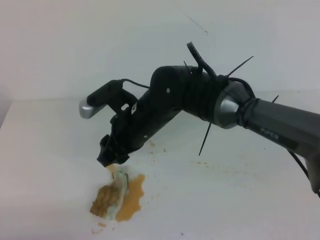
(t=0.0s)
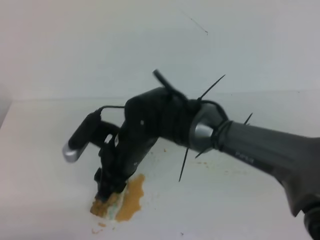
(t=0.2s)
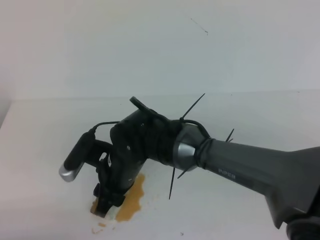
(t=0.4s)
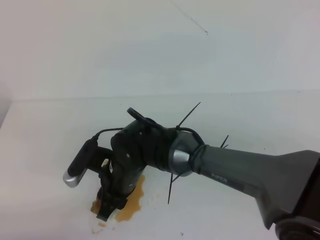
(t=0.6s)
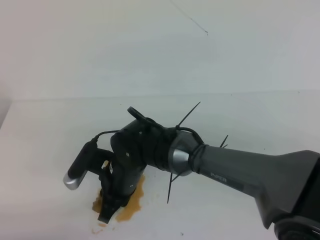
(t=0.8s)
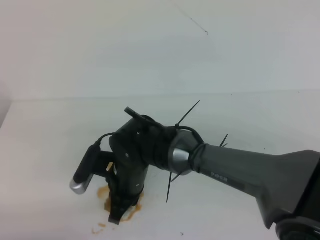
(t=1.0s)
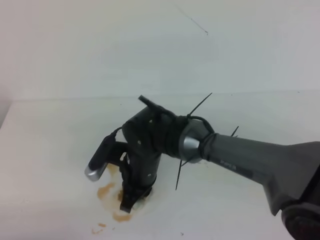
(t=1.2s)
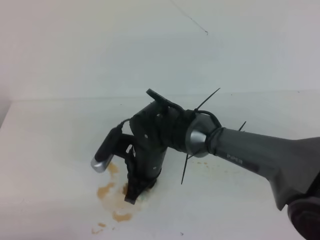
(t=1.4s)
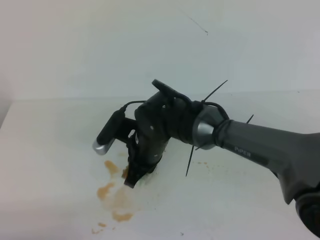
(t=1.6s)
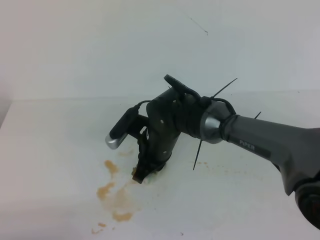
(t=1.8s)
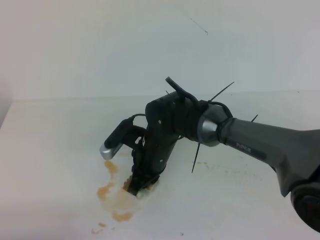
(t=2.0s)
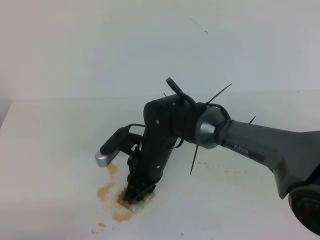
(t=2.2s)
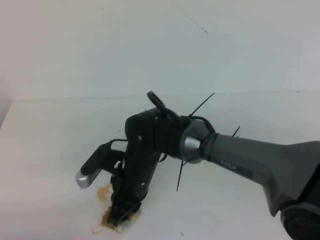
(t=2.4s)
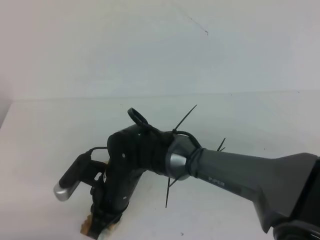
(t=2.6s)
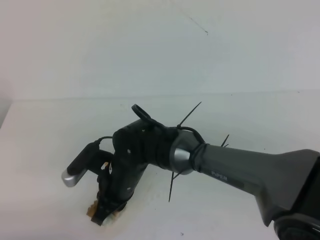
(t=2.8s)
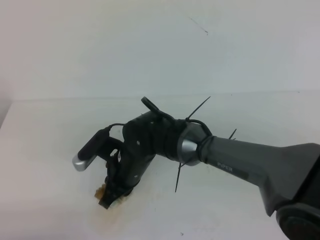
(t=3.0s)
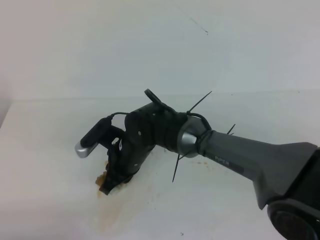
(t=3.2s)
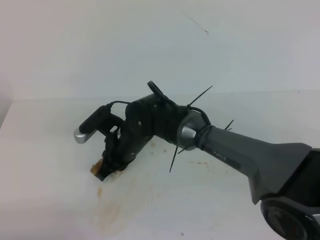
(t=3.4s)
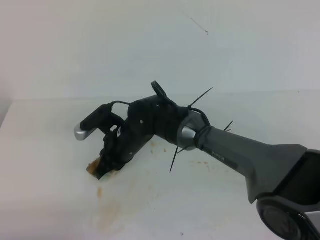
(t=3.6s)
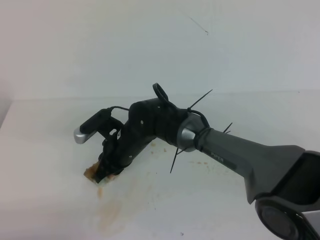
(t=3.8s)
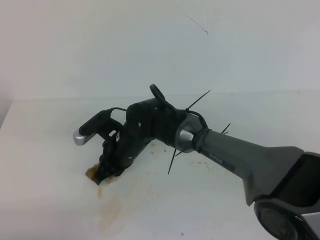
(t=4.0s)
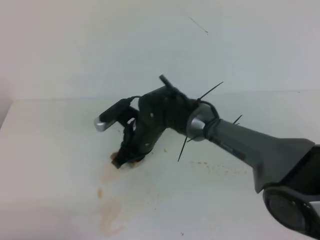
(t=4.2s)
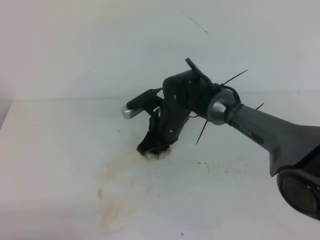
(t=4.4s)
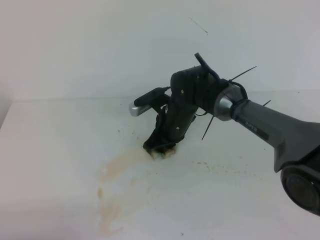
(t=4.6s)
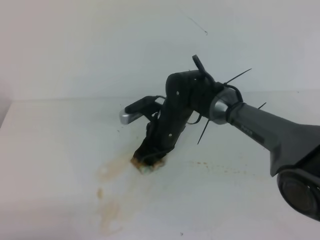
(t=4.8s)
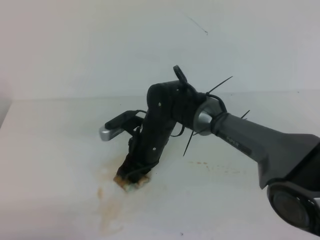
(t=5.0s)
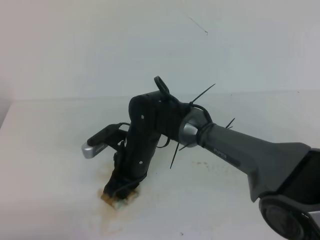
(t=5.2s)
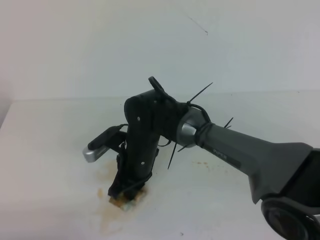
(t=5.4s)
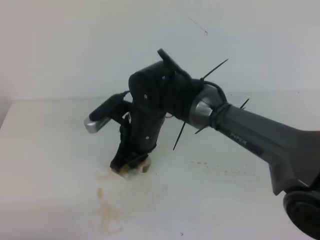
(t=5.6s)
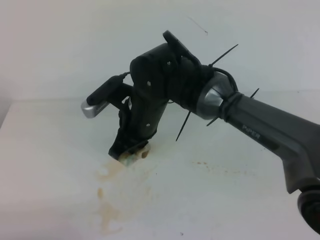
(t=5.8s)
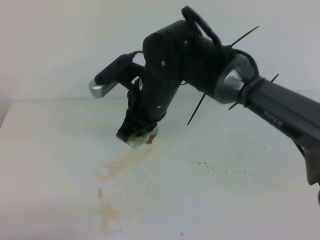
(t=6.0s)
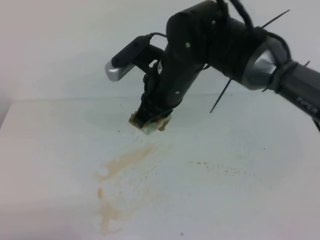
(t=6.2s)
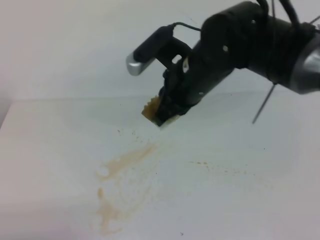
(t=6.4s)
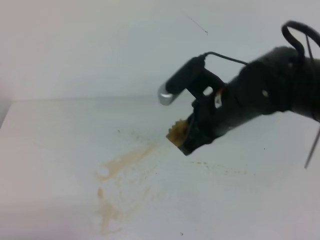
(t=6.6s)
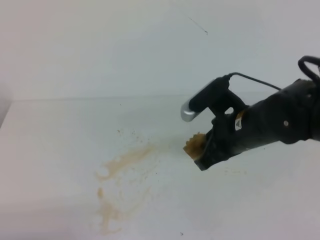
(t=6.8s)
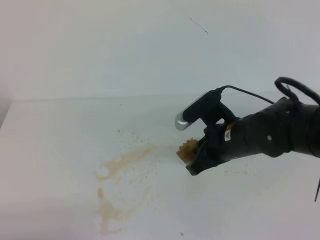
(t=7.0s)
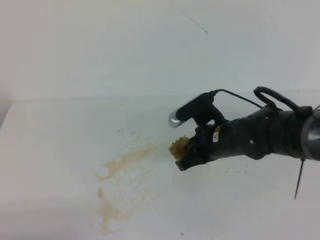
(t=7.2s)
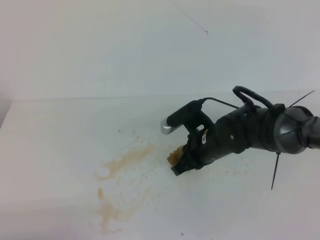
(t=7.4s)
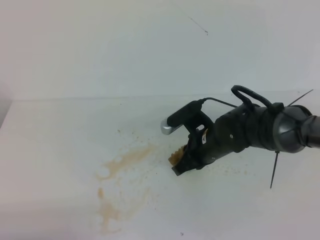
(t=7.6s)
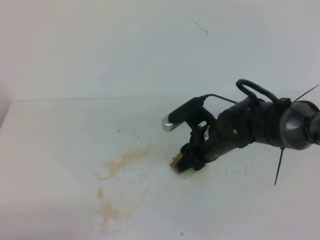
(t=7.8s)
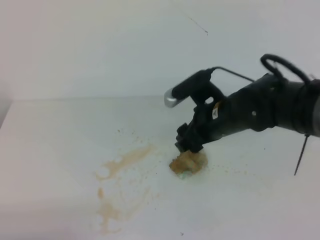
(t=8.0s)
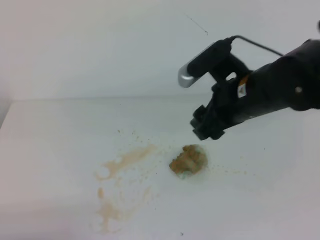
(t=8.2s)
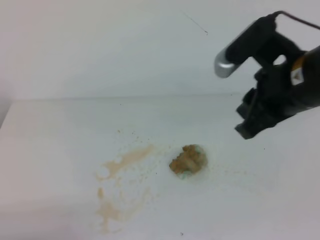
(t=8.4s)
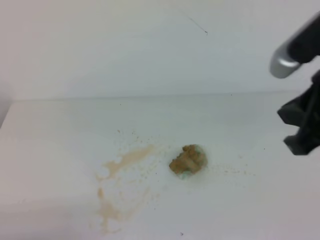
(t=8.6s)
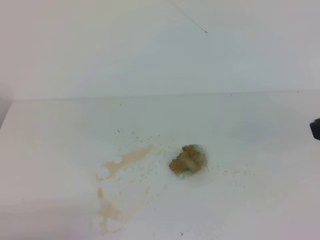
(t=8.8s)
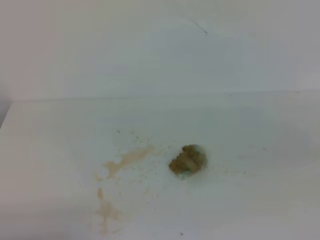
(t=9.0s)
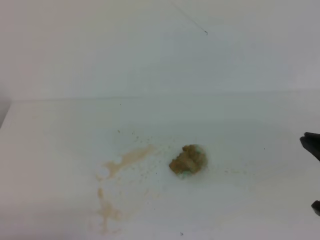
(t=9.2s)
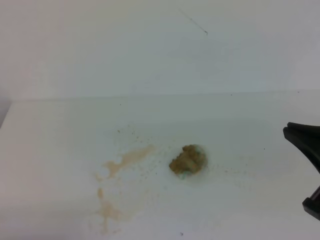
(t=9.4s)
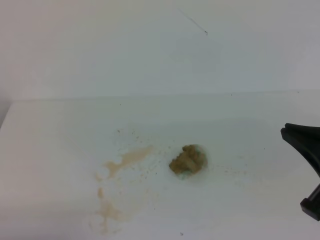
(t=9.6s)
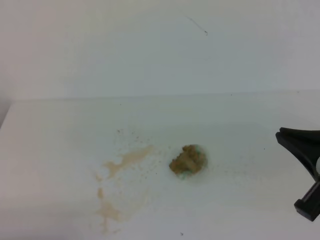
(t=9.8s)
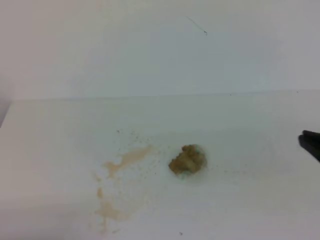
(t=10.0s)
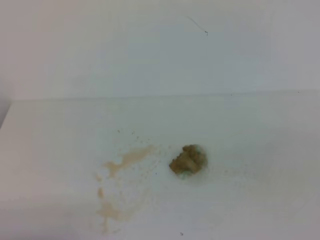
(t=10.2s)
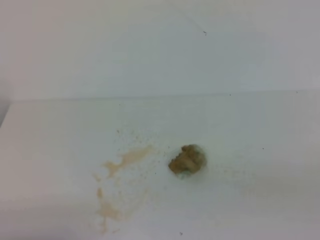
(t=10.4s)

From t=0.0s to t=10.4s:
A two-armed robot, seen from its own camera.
From t=0.0s to t=1.4s: The right gripper goes approximately 5 cm downward, and closes up.
From t=1.4s to t=3.0s: The grippers move only a little.
From t=3.0s to t=4.4s: The right gripper is displaced forward and to the right by some 10 cm.
From t=4.4s to t=6.0s: The right gripper is displaced upward by approximately 15 cm.
From t=6.0s to t=7.4s: The right gripper is displaced downward and to the right by about 15 cm.
From t=7.4s to t=9.0s: The right gripper travels backward, upward and to the right by approximately 30 cm, and opens, then closes once more.

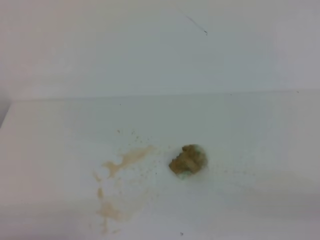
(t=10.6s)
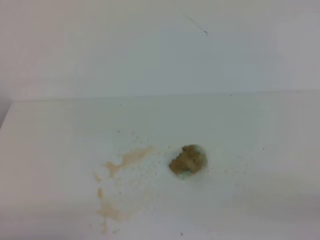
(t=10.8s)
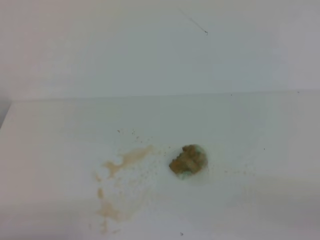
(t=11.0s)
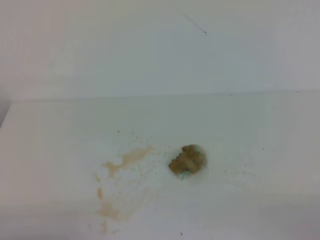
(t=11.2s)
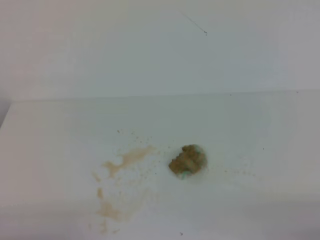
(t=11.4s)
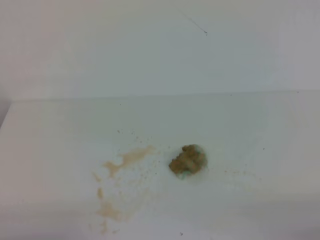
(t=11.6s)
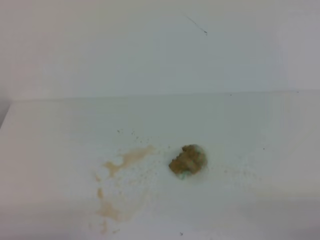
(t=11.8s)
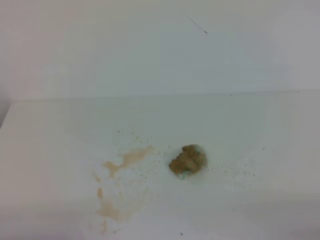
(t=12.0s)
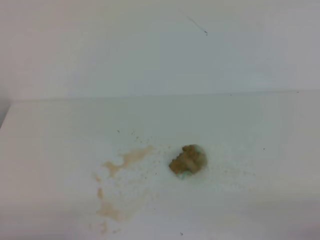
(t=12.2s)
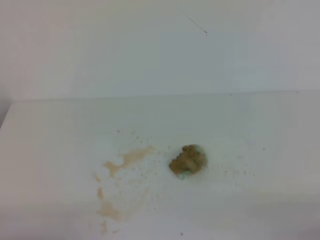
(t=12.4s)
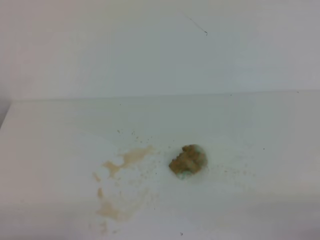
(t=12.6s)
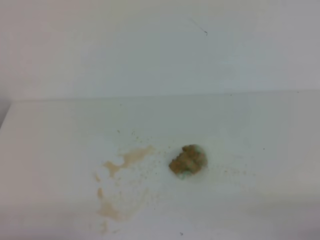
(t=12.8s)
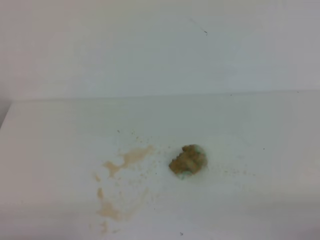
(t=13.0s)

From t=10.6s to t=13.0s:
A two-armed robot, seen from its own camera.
From t=11.8s to t=13.0s: The two grippers keep their place.
